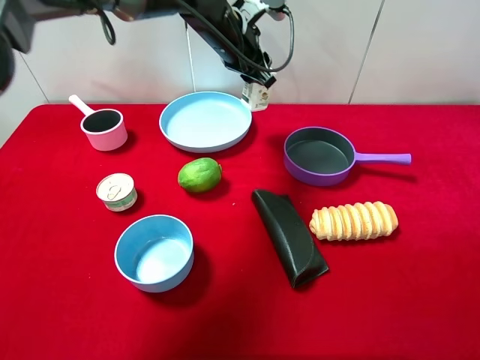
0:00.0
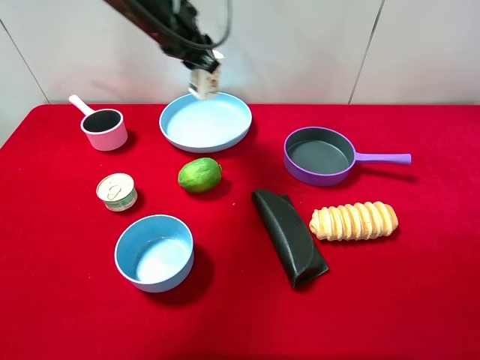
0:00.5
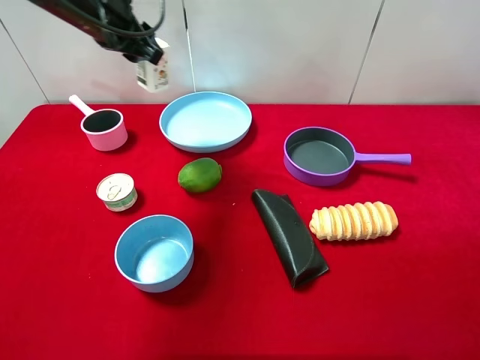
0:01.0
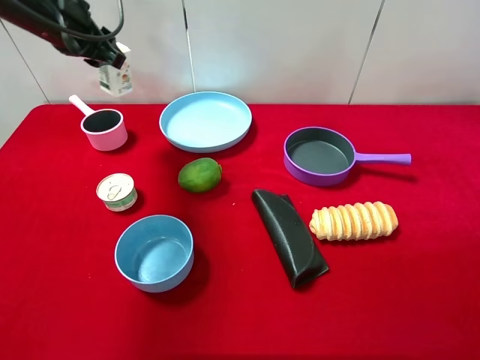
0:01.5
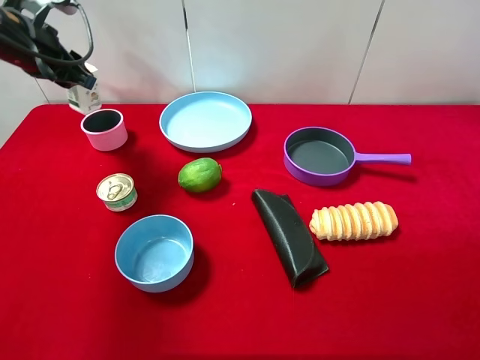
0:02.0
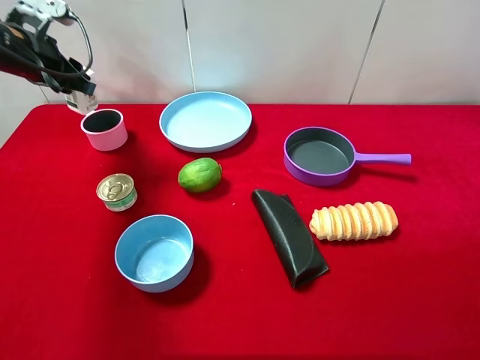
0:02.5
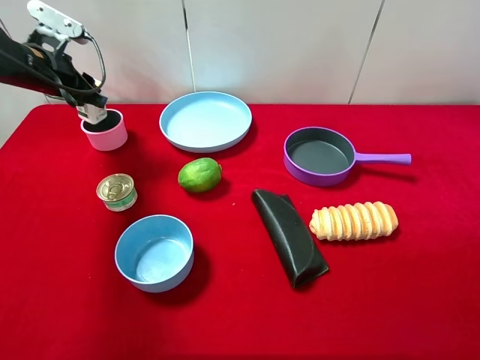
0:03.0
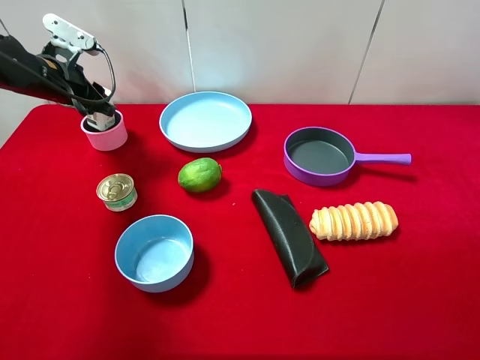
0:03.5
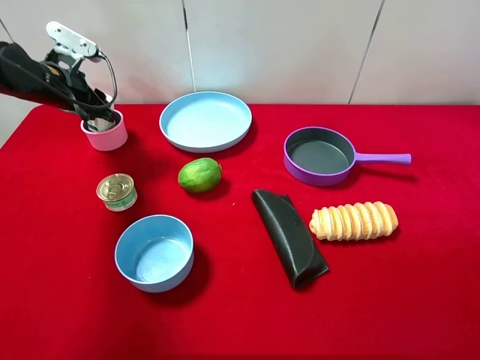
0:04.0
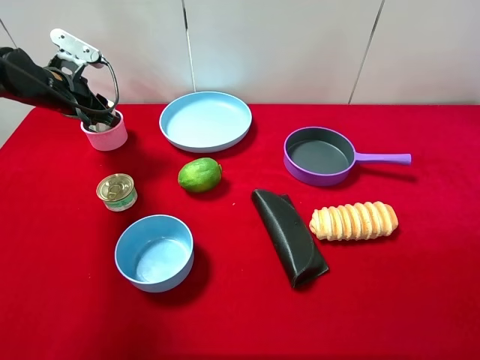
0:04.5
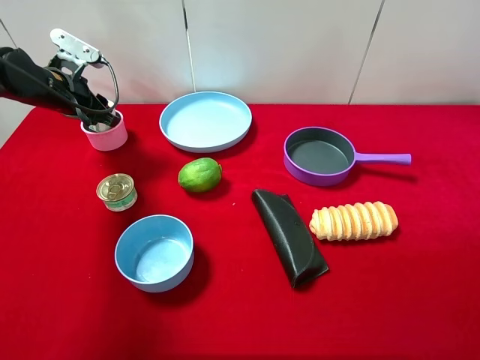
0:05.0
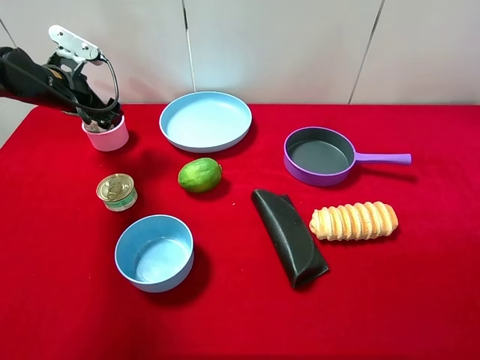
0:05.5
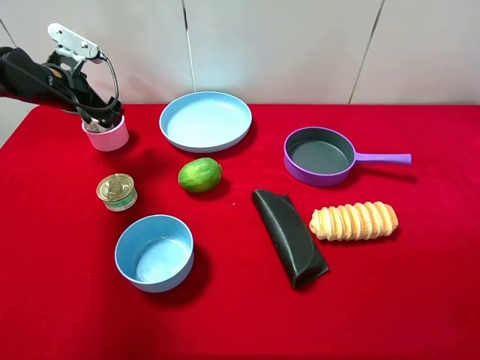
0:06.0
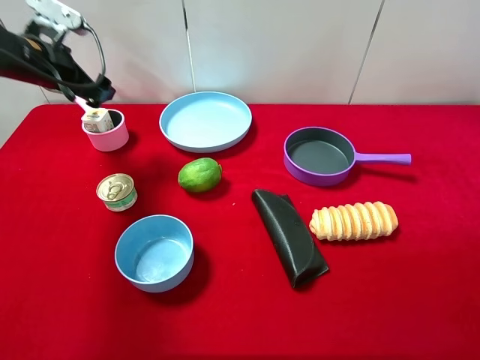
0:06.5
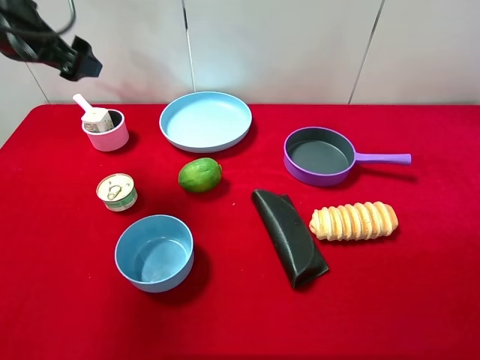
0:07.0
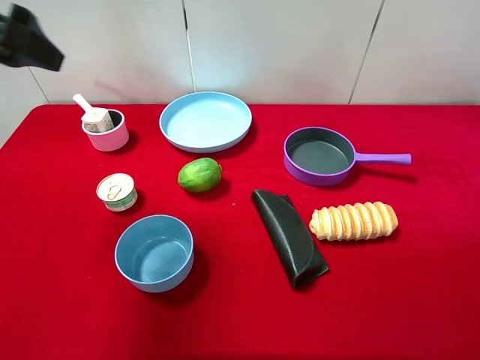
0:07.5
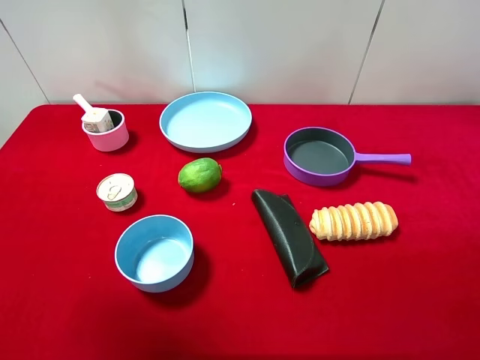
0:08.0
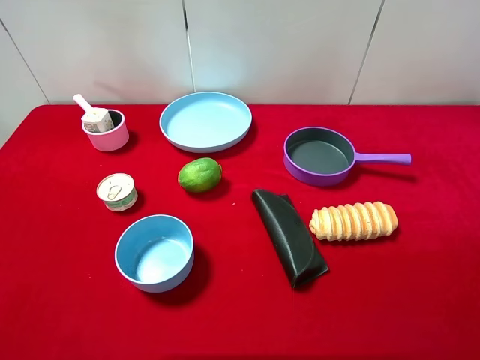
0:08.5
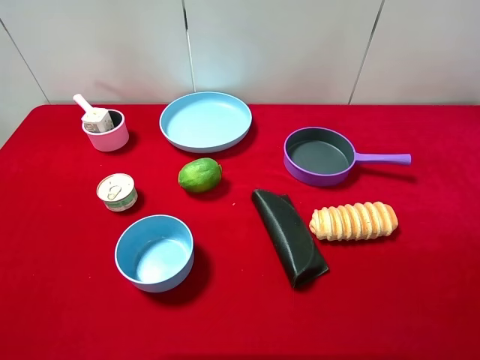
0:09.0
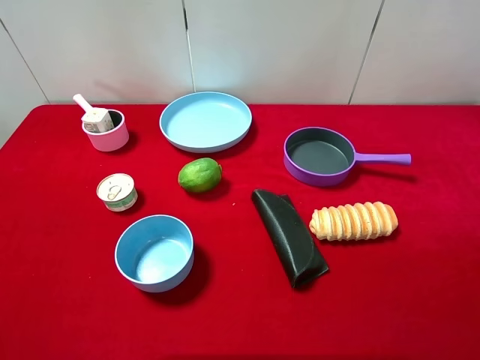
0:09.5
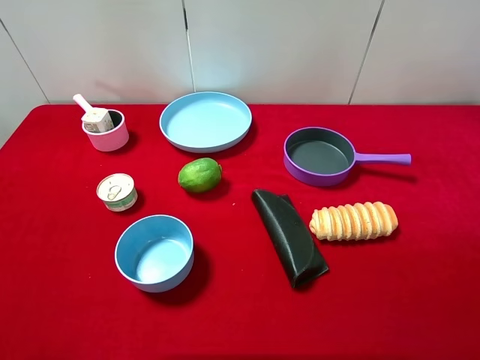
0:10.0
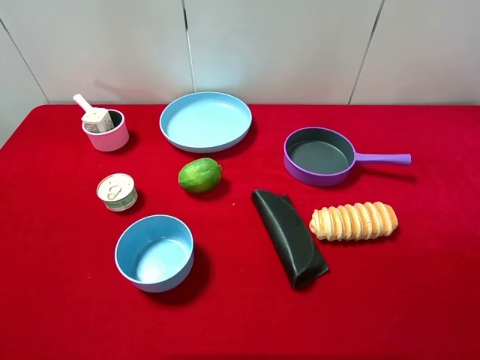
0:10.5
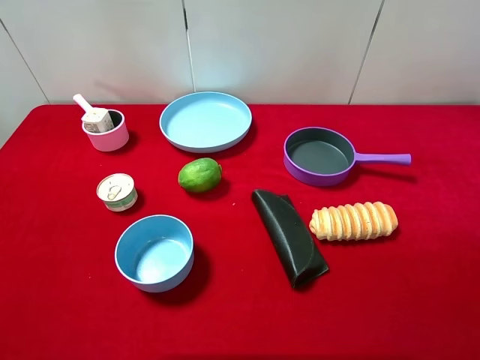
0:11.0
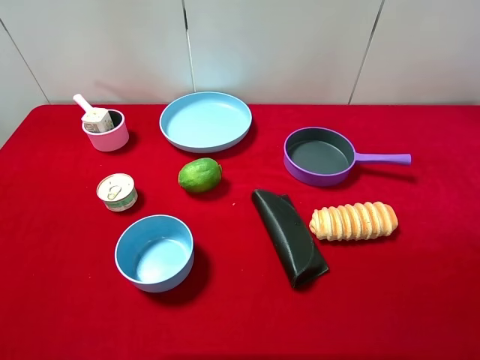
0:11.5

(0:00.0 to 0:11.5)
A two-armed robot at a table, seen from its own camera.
Task of the whole recording: pick up an item with a gripper and place it in a random container on the desktop.
0:00.0 - 0:02.0: The left gripper travels to the left by approximately 25 cm.
0:02.0 - 0:04.0: The left gripper heads downward, covering some 10 cm.
0:04.0 - 0:06.0: The left gripper opens.
0:06.0 - 0:07.5: The left gripper moves upward and backward, some 25 cm.
0:07.5 - 0:09.5: The left gripper goes some 20 cm backward.

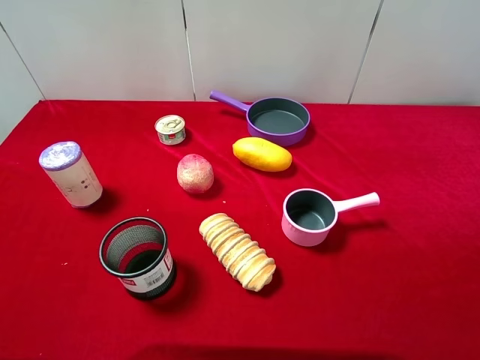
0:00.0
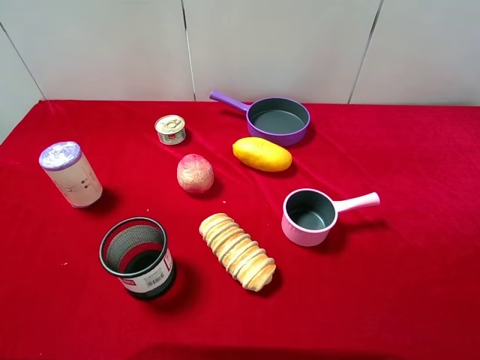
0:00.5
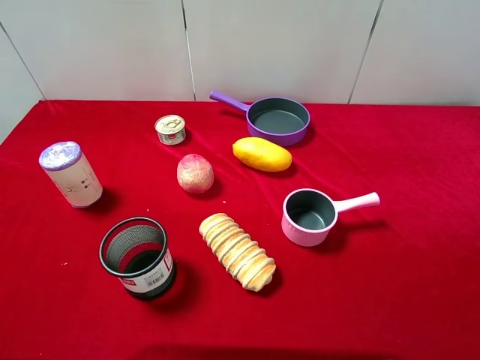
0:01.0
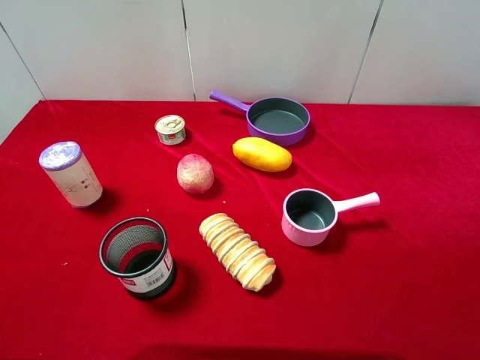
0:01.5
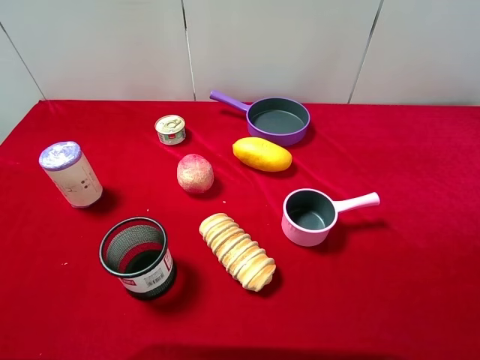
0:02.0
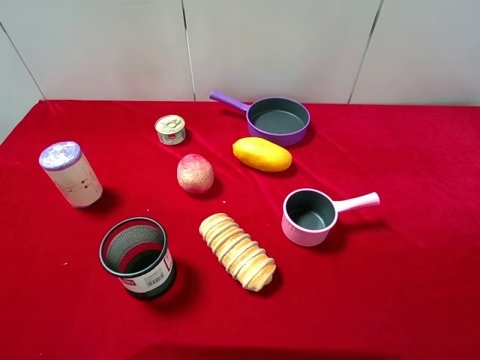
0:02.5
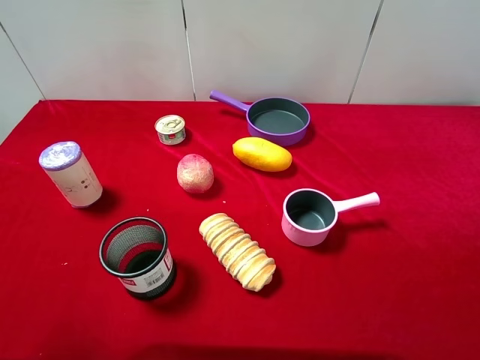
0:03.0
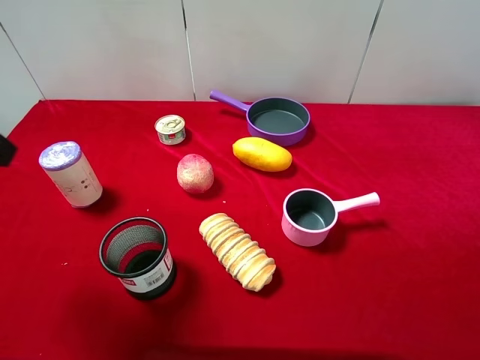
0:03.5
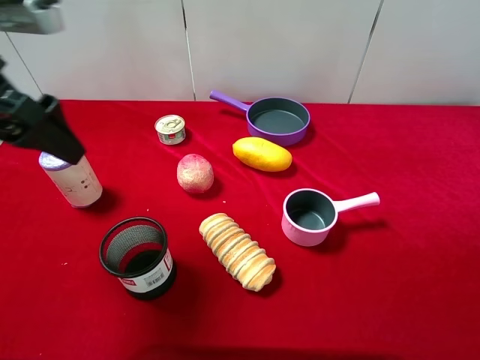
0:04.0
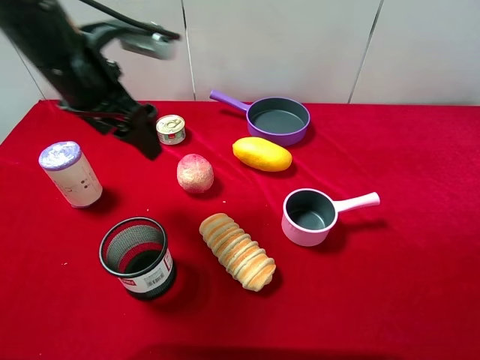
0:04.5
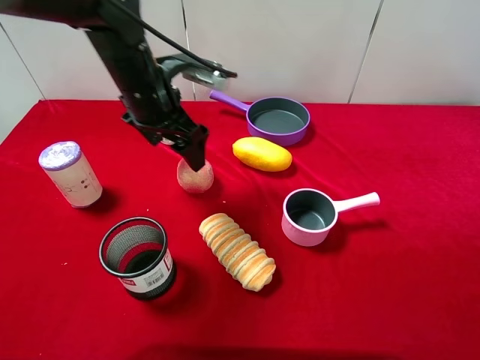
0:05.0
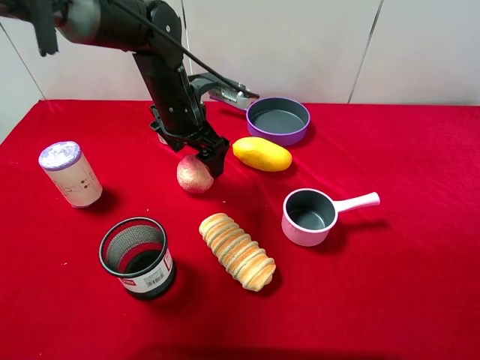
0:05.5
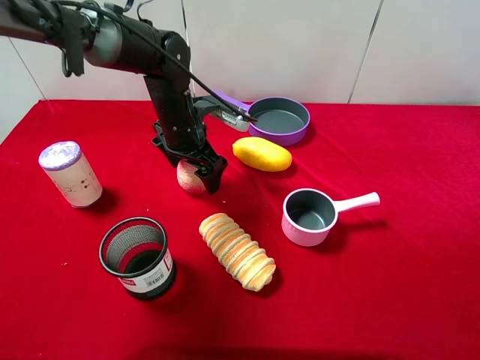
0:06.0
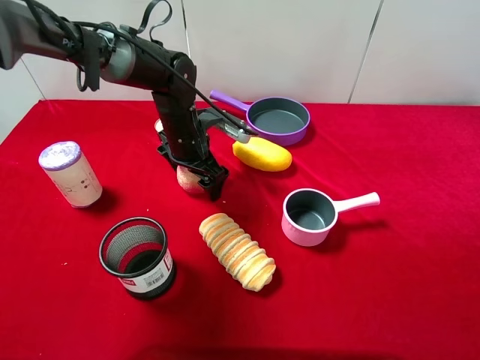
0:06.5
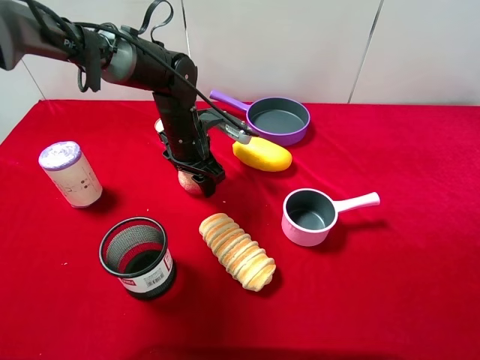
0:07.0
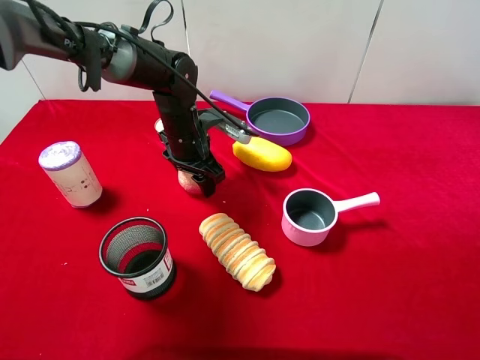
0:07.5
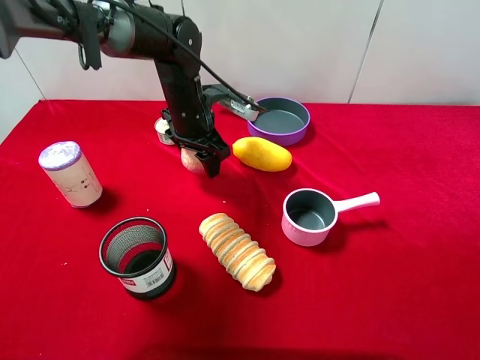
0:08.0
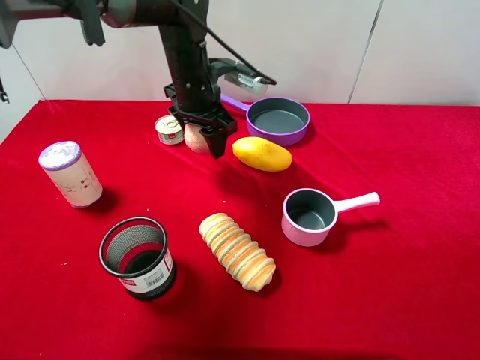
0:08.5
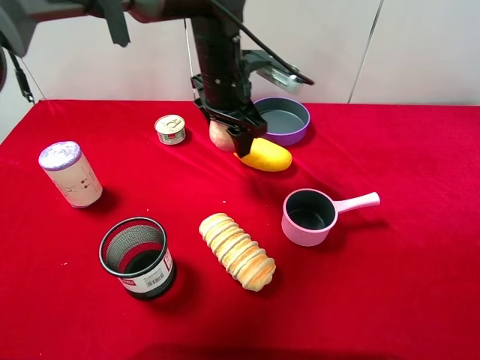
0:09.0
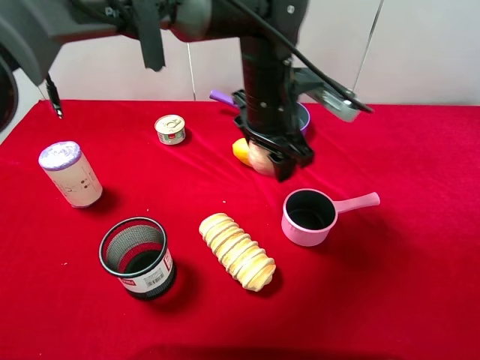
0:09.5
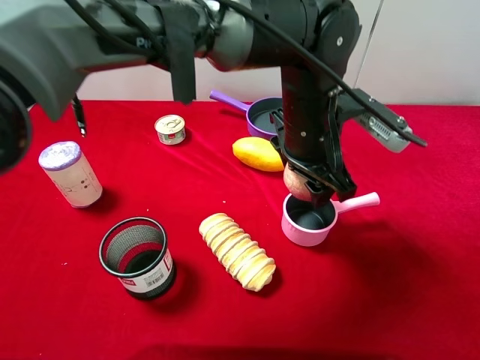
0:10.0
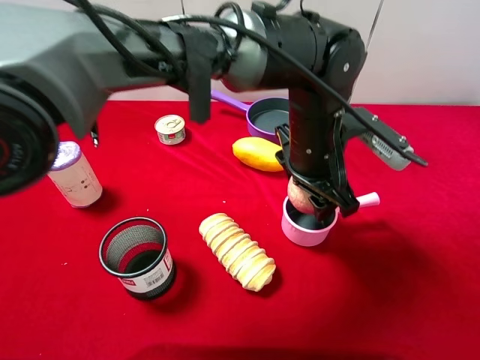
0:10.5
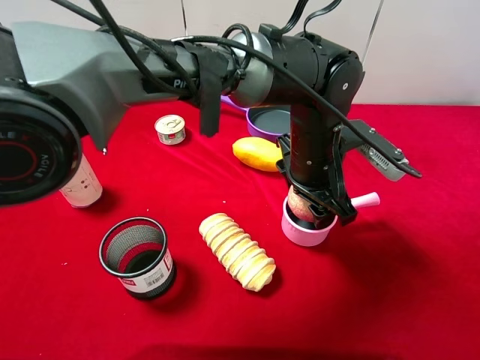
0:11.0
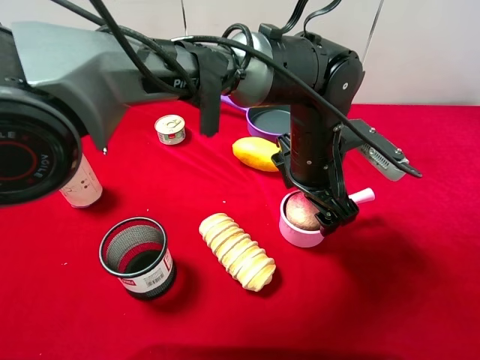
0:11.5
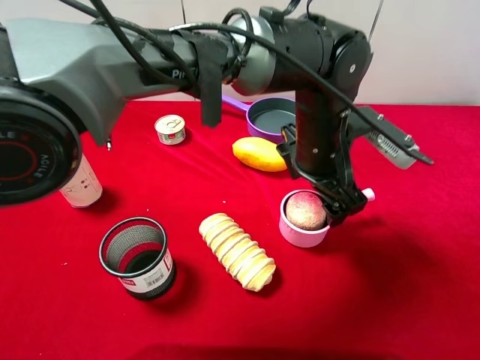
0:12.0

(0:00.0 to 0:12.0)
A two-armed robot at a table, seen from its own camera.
Task of the whole recording: pick up an item with a gripper and place it in a random container on the desktop.
0:00.0 - 0:02.0: Both grippers stay about where they are.
0:02.0 - 0:04.0: The left gripper travels forward by about 25 cm.
0:04.0 - 0:06.0: The left gripper heads downward, to the right and forward, covering about 30 cm.
0:06.0 - 0:08.0: The left gripper closes up.
0:08.0 - 0:10.0: The left gripper heads to the right and backward, covering some 20 cm.
0:10.0 - 0:12.0: The left gripper opens.

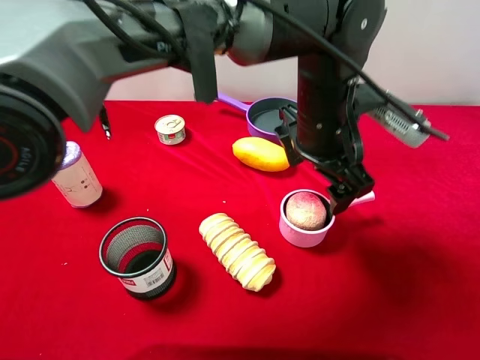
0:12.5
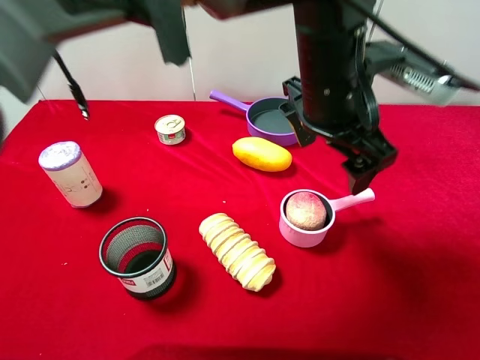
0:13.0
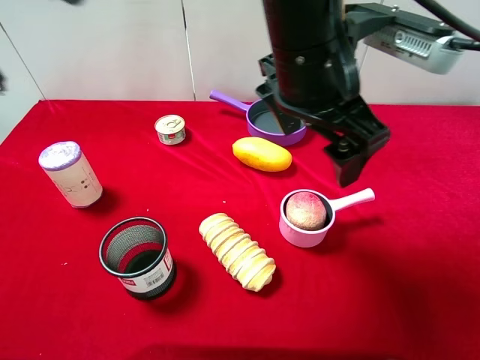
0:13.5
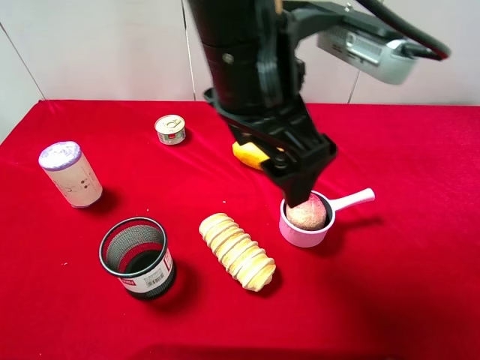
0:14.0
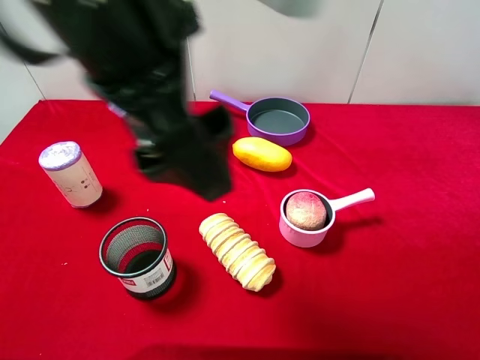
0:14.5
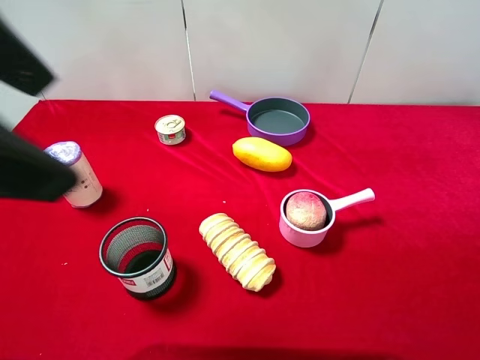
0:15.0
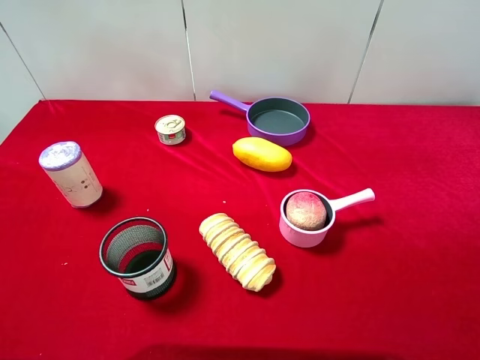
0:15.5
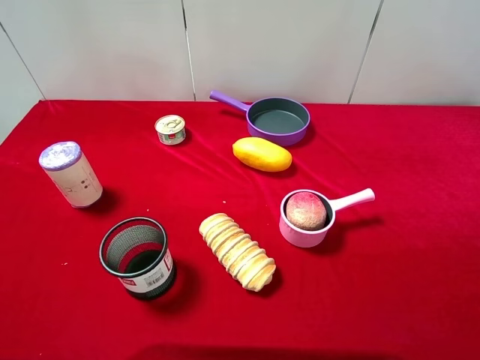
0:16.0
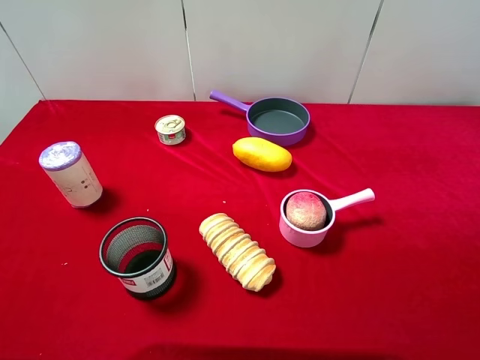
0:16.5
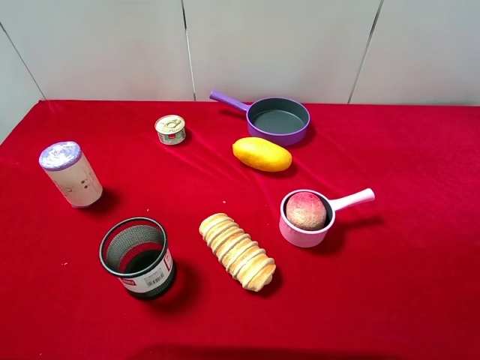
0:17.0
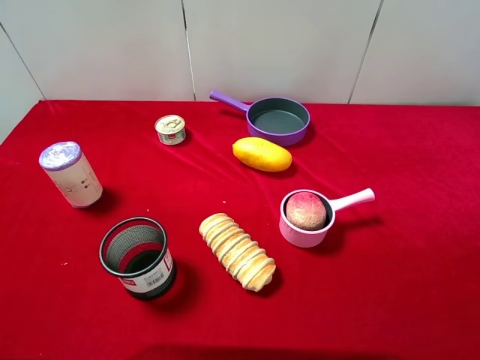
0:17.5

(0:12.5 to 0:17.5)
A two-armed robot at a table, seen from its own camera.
Task of the whole recording: pick up an item with a gripper and place it in a random container on the desktop.
0:12.5 - 0:15.0: The left gripper goes some 40 cm to the left, upward and backward.
0:15.0 - 0:17.5: The left gripper moves to the left, downward and backward, about 20 cm.
